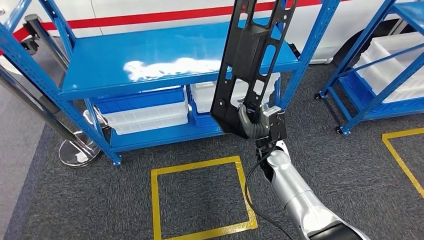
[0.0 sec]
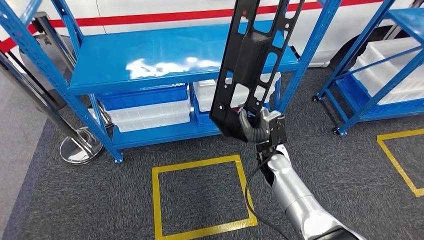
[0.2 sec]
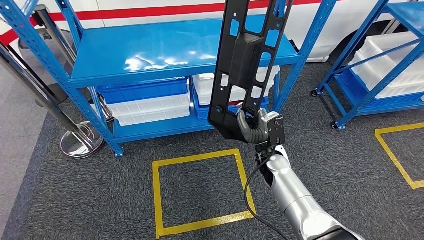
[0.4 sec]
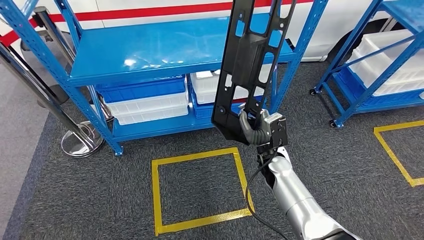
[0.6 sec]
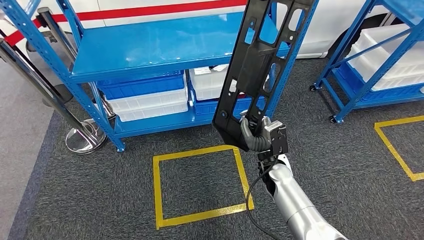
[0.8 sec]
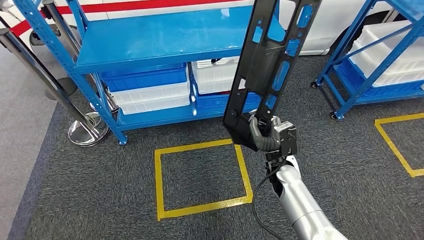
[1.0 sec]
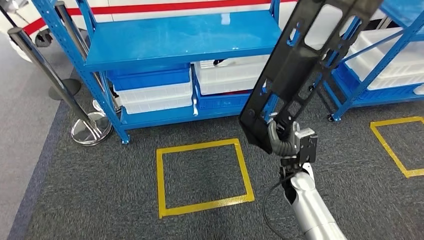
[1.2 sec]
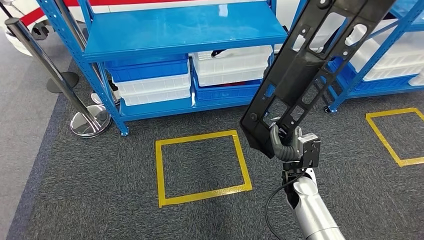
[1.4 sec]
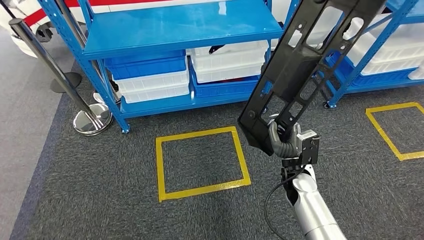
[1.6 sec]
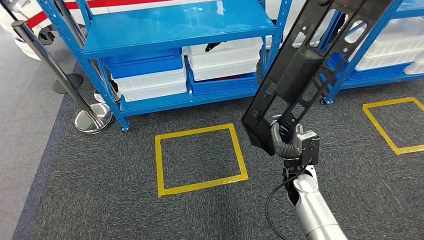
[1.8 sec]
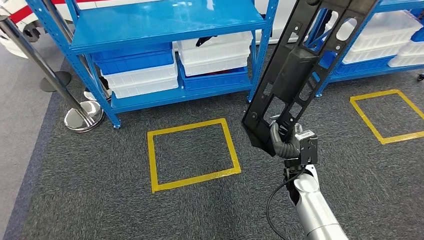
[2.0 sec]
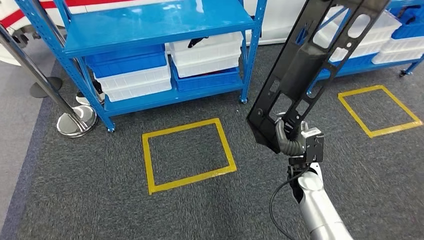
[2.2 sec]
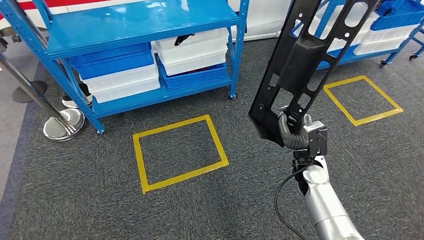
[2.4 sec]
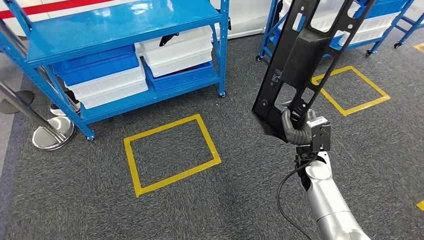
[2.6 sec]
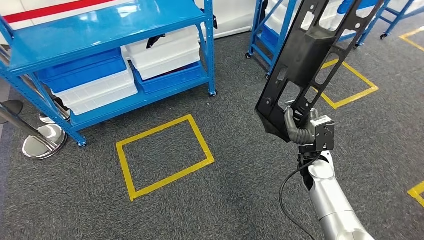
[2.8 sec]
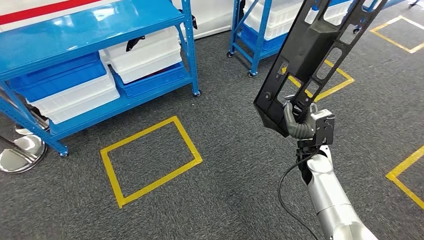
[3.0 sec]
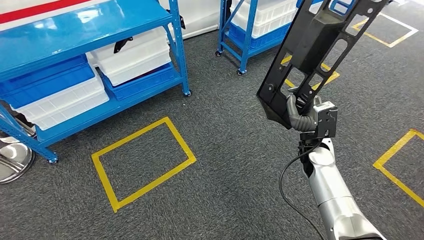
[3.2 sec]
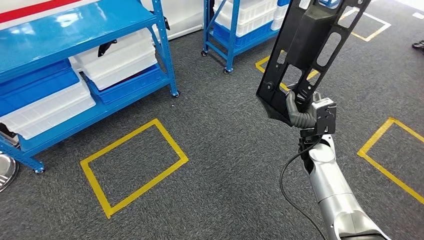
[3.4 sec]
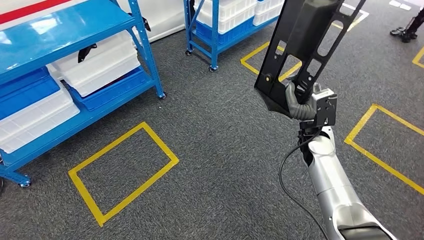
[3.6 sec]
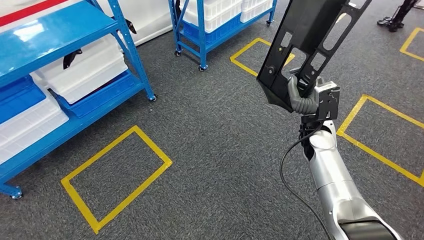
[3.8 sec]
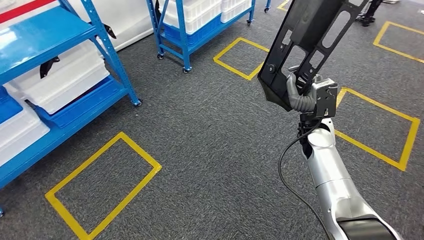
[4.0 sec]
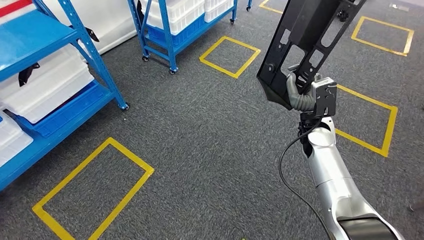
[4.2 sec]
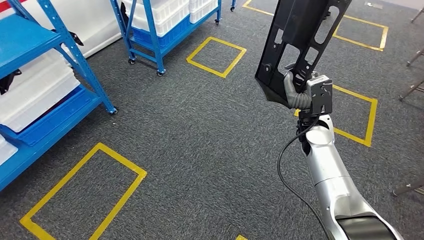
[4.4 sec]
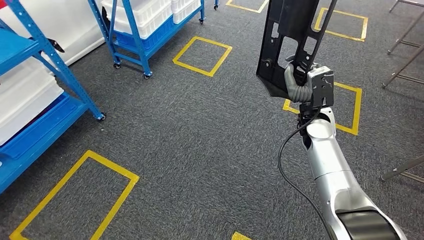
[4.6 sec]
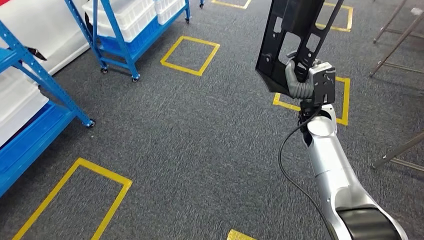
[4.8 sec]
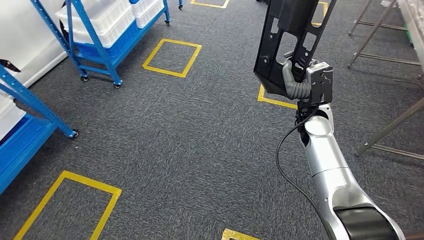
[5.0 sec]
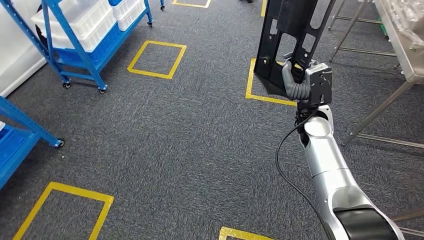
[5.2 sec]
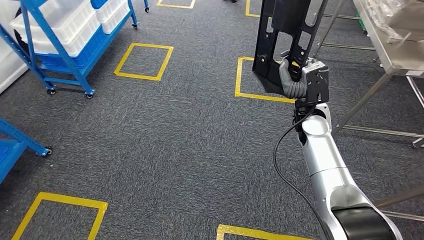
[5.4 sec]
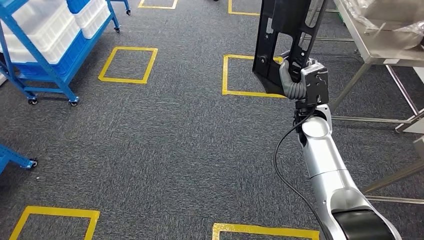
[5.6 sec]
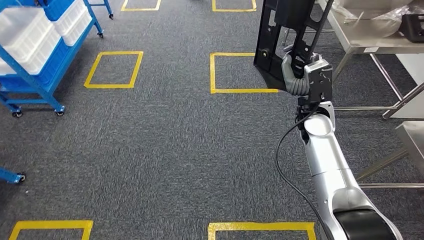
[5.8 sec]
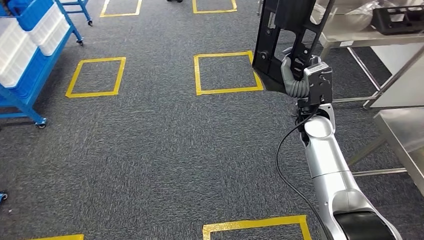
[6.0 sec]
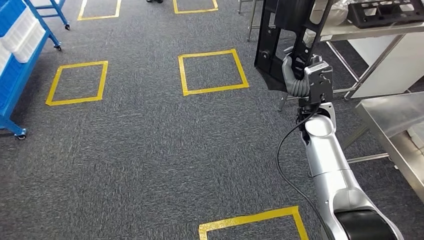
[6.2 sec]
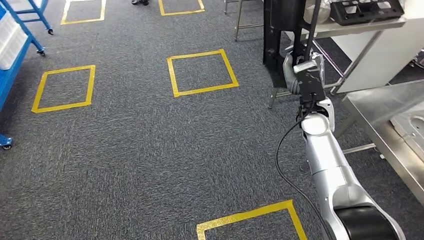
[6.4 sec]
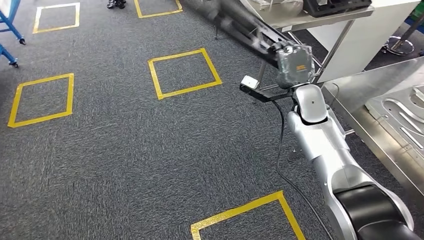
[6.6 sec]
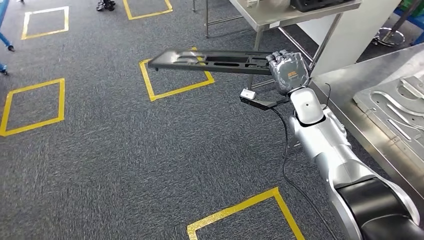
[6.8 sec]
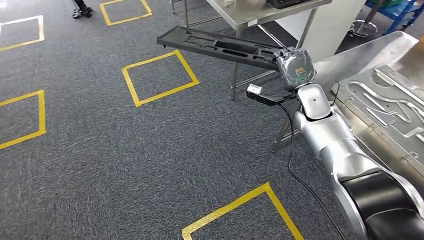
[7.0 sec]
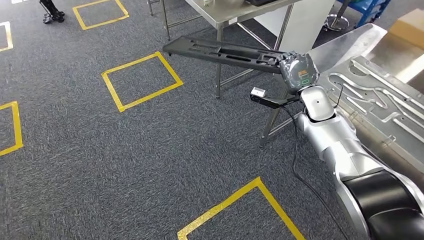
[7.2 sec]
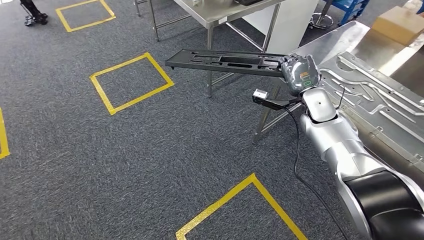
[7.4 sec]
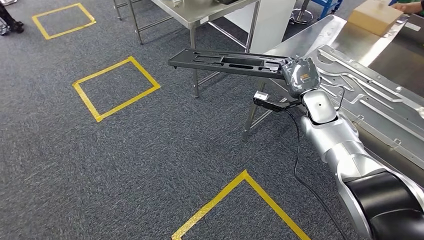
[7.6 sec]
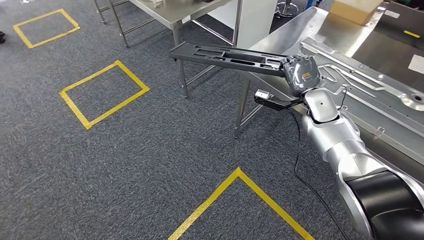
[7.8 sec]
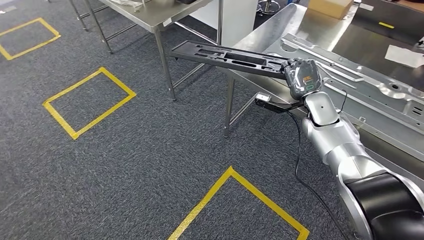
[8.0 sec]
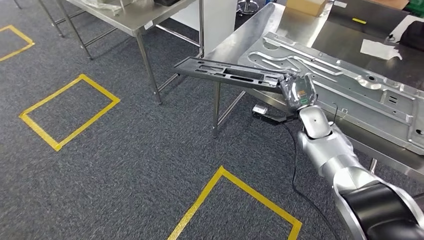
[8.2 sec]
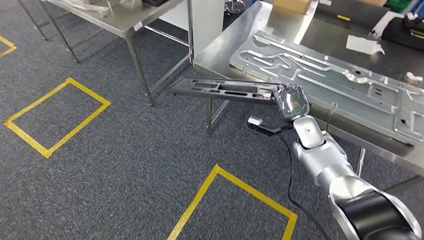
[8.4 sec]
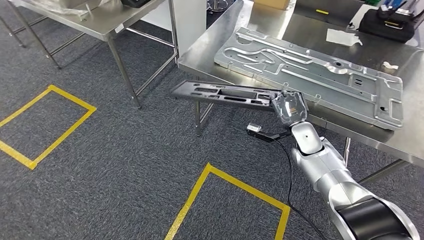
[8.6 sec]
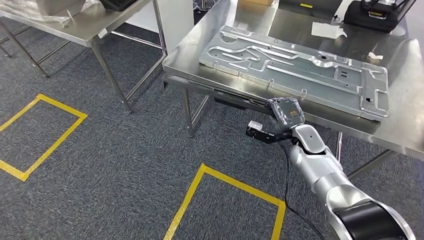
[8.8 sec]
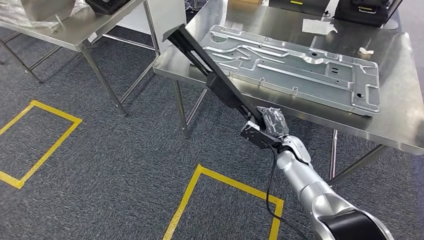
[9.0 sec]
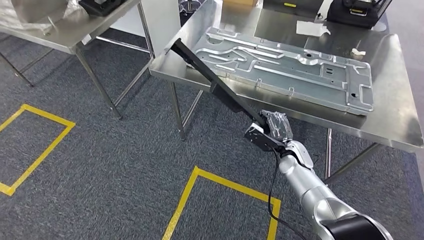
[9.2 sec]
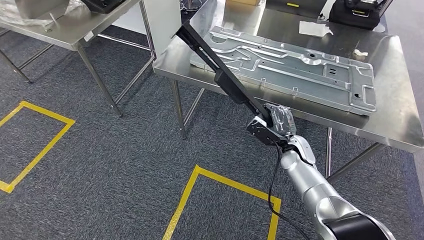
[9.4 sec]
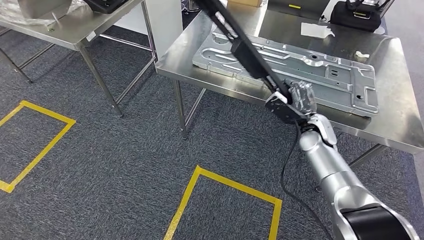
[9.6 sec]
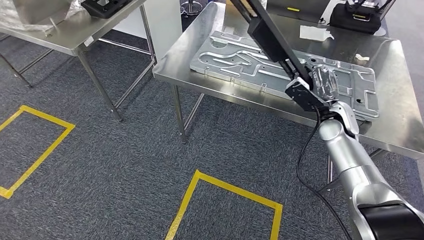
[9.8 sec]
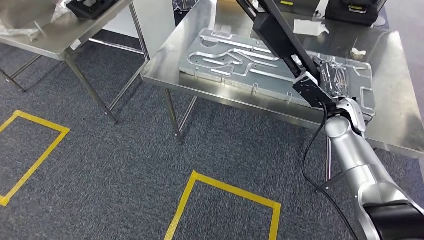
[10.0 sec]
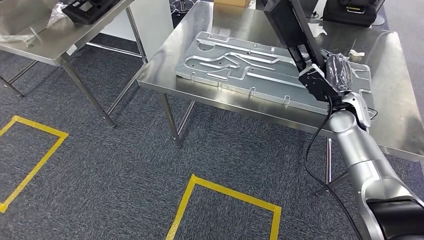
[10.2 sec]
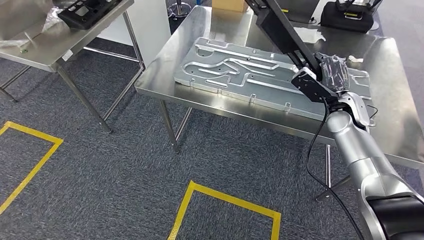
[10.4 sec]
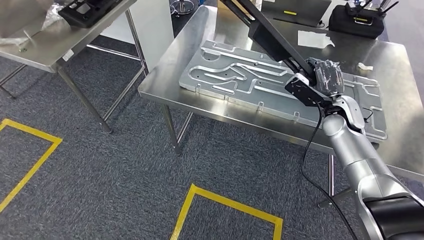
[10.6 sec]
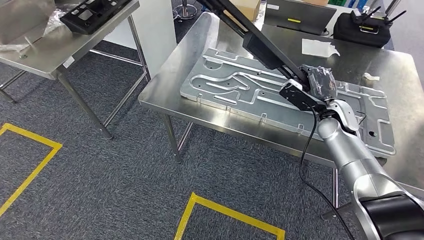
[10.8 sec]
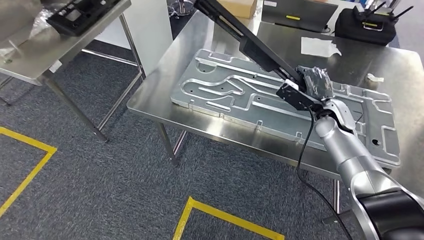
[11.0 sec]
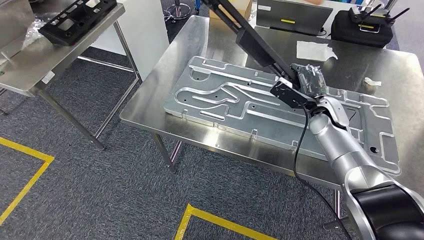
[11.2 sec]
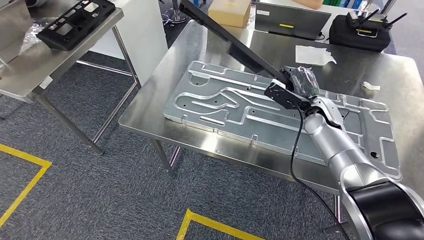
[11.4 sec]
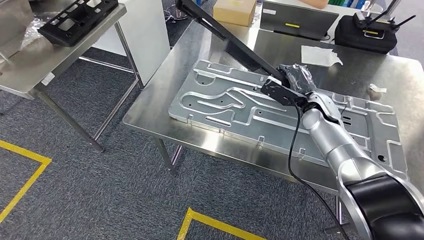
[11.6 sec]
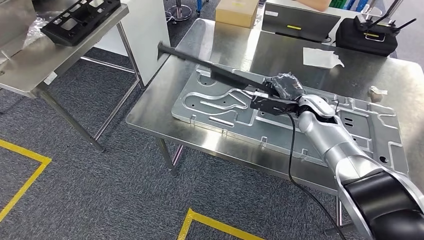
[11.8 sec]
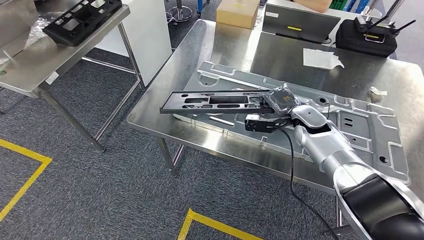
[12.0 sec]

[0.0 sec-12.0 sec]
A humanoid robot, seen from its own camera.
Step, 0.8 sec to 11.0 sec: Move the large material to the workbench.

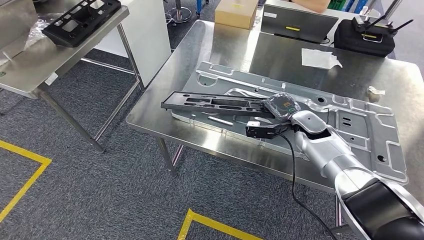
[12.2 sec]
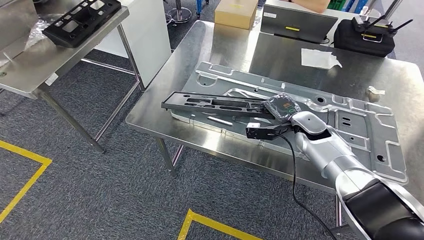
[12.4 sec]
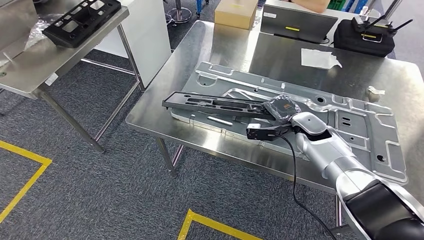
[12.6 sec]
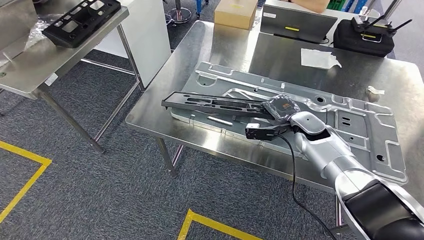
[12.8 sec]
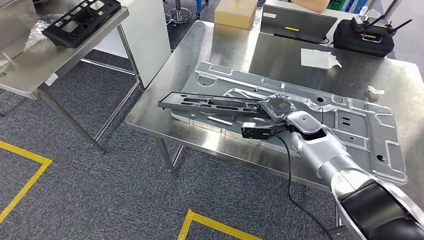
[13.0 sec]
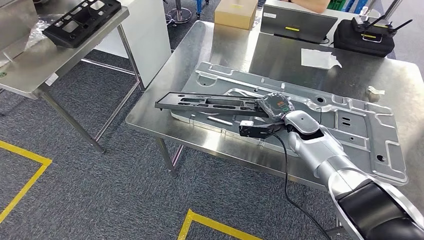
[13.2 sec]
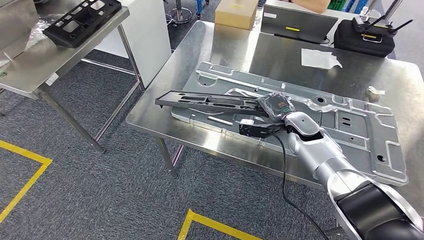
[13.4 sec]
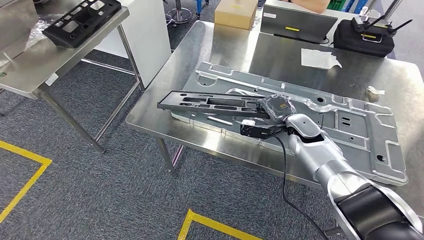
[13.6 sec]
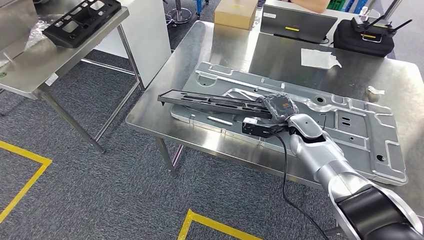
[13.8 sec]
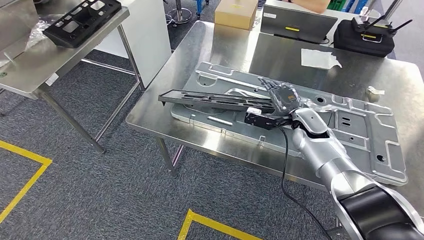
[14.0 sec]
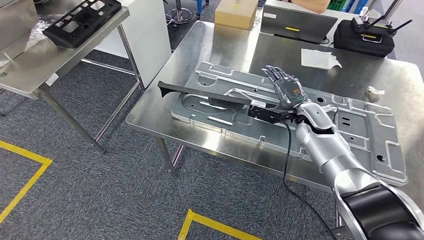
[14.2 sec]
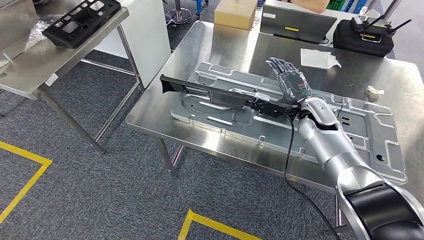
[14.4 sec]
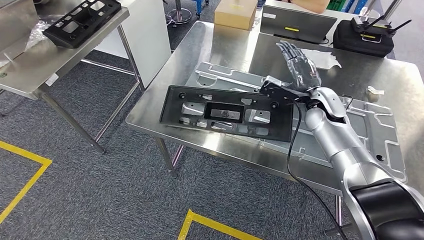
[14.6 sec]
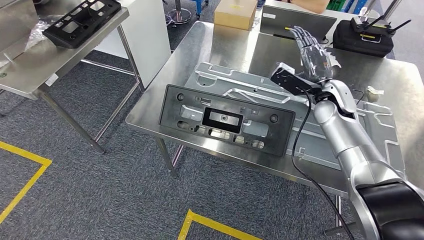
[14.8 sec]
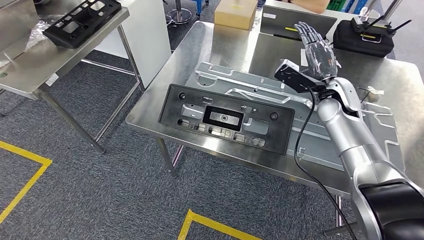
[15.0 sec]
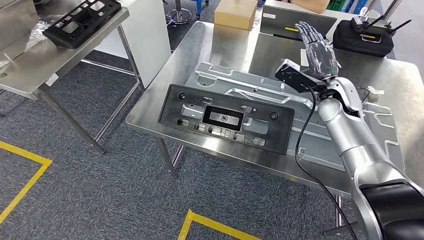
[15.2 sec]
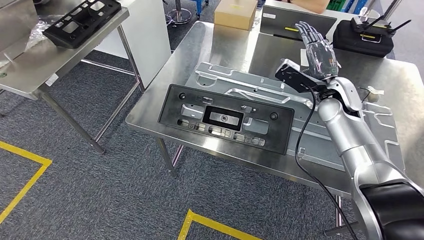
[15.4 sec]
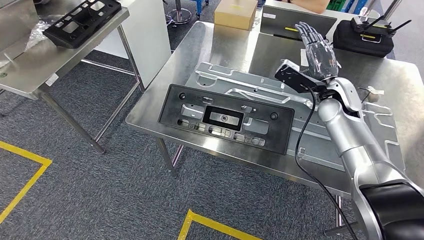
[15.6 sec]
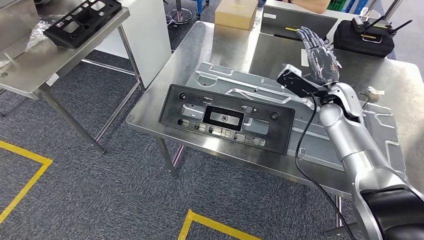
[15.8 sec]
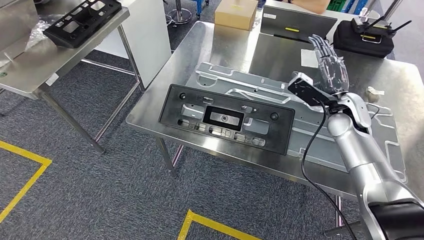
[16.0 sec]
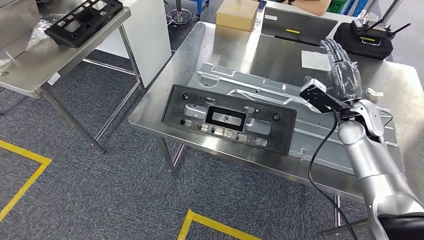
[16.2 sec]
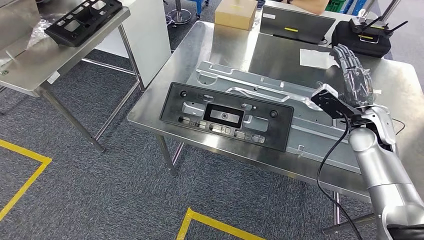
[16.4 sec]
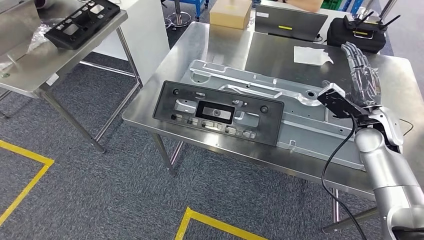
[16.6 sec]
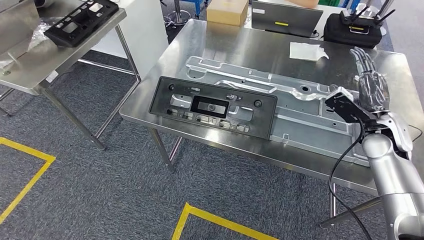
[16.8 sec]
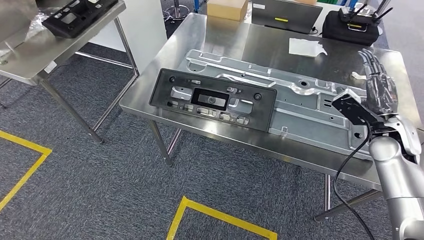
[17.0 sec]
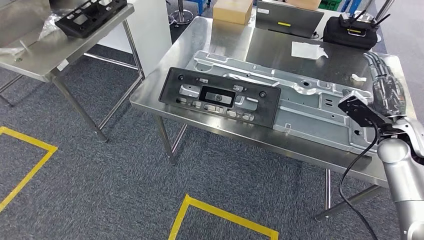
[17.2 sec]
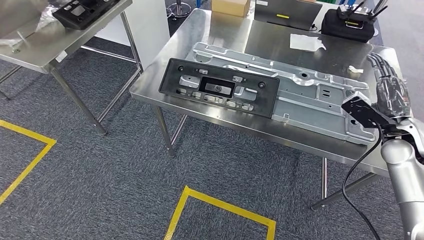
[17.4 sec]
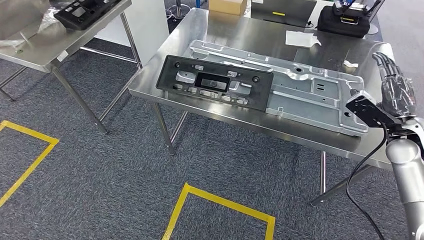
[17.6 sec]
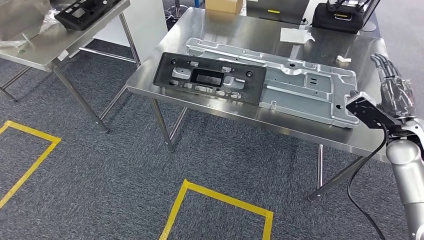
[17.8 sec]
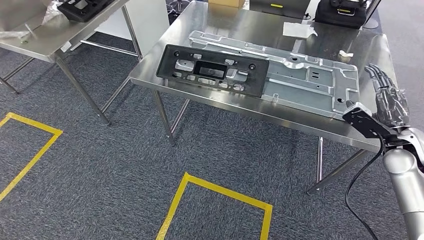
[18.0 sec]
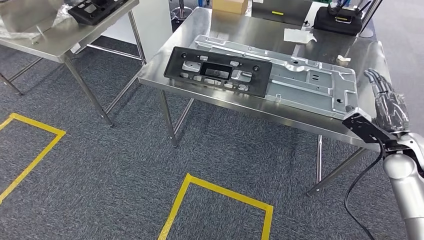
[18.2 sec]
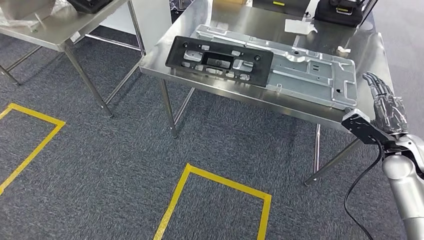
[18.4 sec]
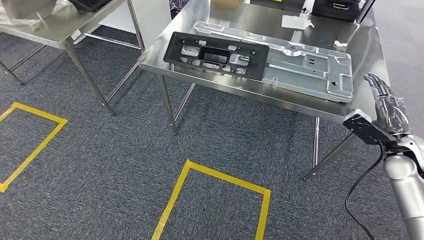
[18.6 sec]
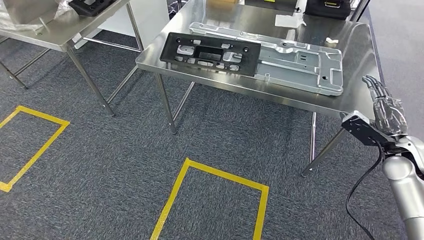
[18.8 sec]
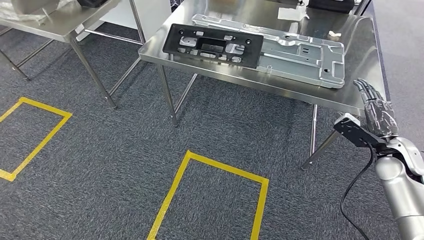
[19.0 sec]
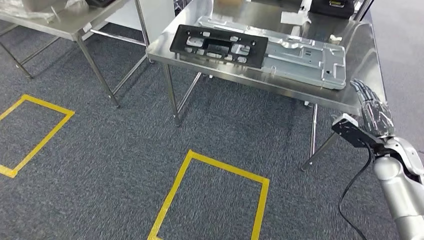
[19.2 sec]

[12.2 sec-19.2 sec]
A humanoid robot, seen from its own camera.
Step, 12.4 sec to 18.2 sec: Insert the large material into the corresponding slot on the workbench.
12.2 sec to 13.6 sec: The hands stay close to where they were, moving slightly.
13.6 sec to 15.0 sec: The right hand travels upward and to the right by some 15 cm.
